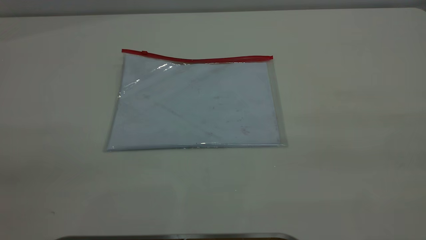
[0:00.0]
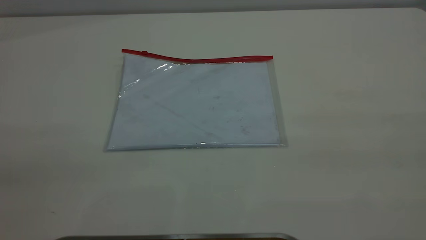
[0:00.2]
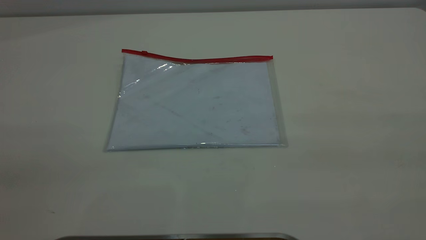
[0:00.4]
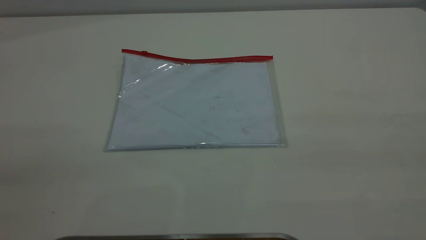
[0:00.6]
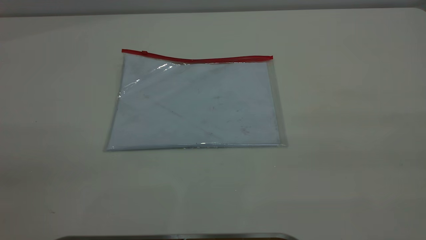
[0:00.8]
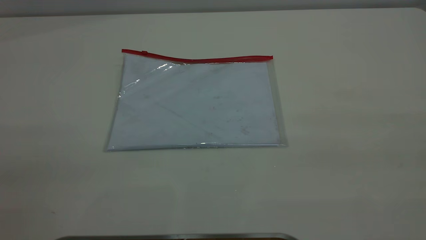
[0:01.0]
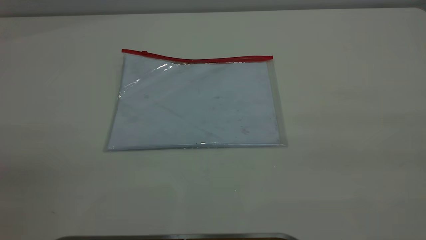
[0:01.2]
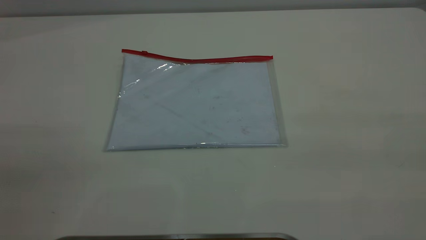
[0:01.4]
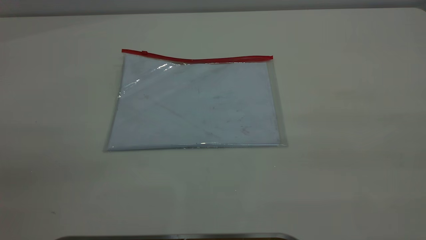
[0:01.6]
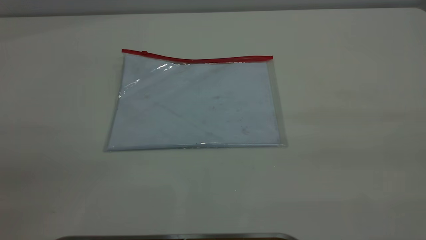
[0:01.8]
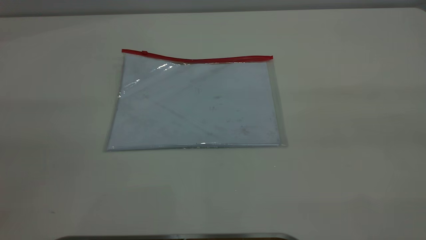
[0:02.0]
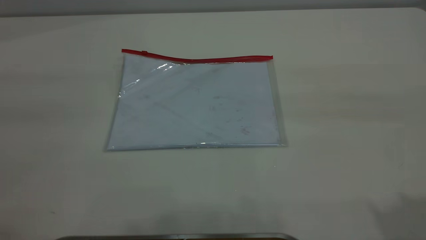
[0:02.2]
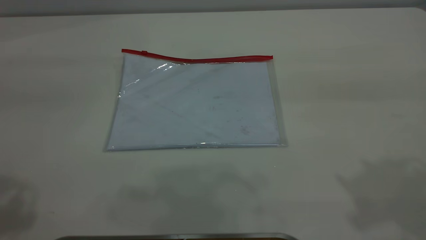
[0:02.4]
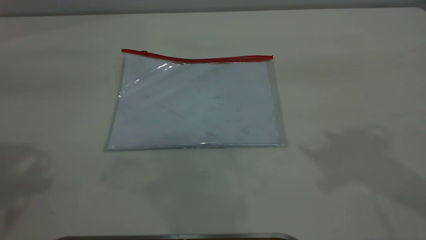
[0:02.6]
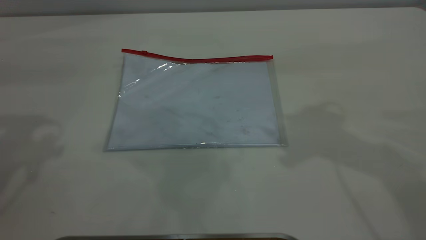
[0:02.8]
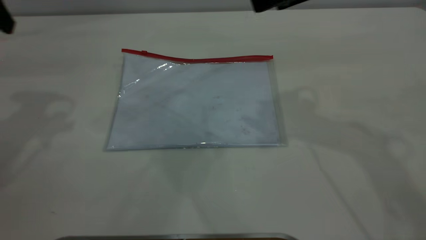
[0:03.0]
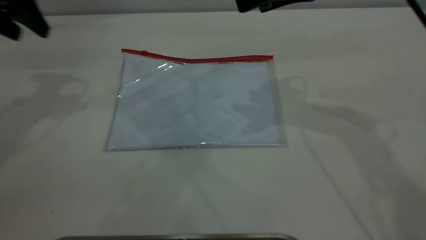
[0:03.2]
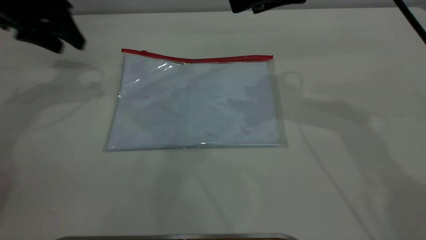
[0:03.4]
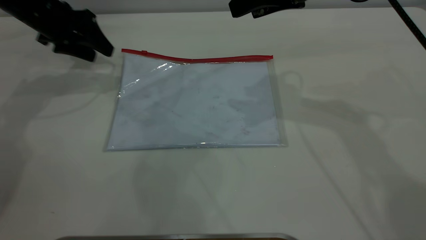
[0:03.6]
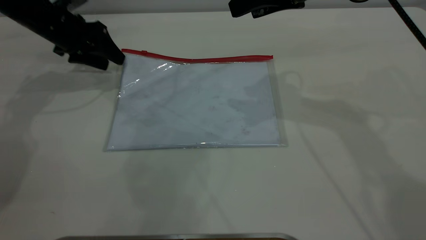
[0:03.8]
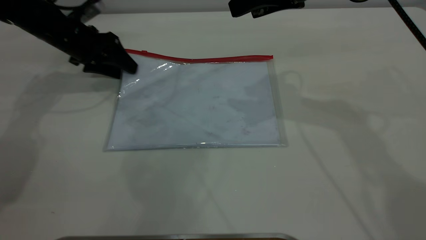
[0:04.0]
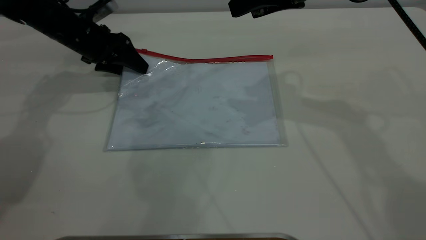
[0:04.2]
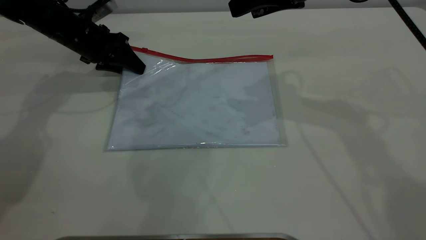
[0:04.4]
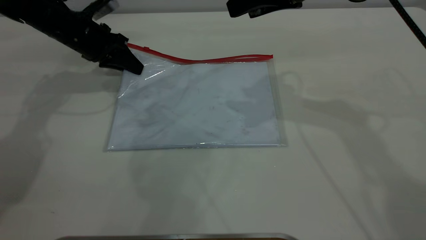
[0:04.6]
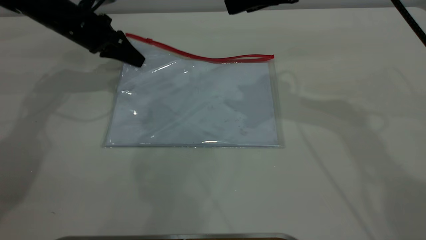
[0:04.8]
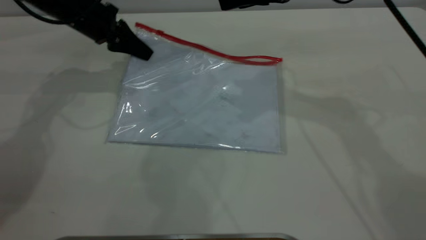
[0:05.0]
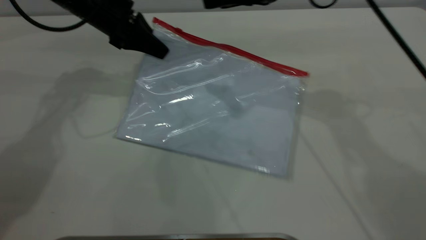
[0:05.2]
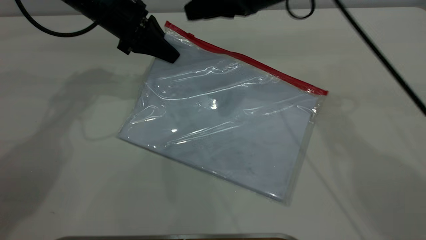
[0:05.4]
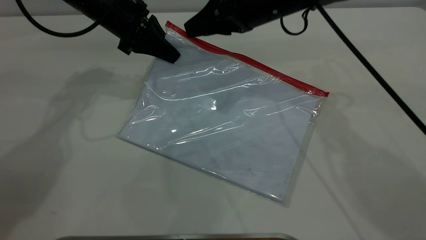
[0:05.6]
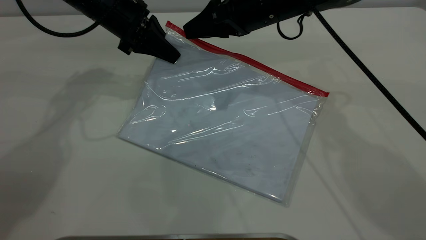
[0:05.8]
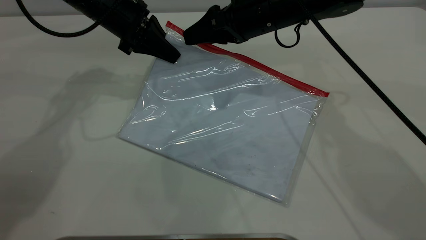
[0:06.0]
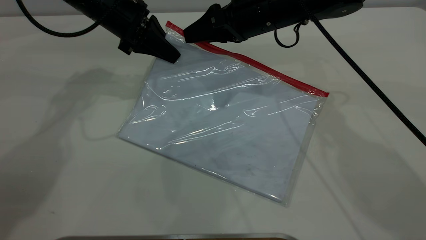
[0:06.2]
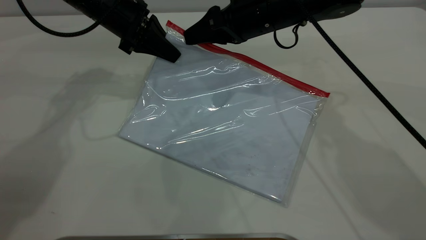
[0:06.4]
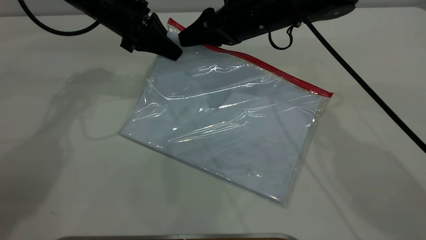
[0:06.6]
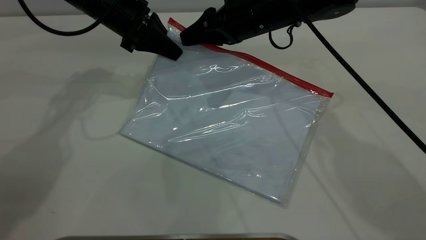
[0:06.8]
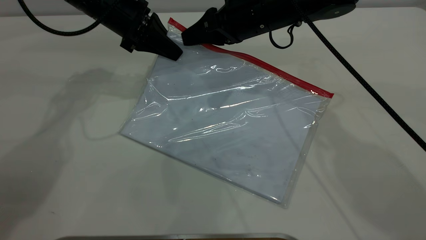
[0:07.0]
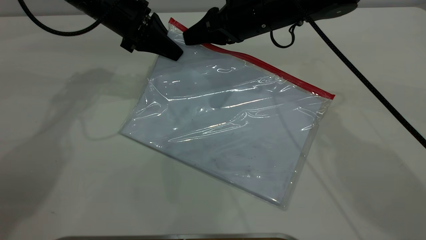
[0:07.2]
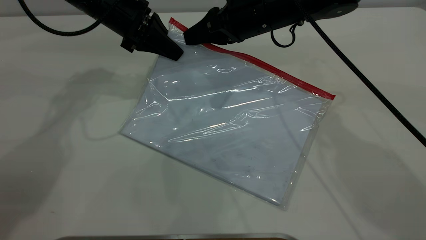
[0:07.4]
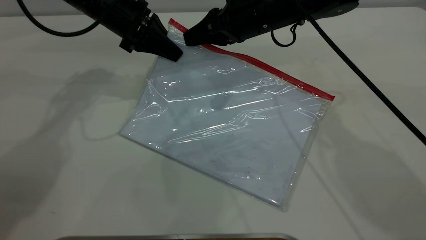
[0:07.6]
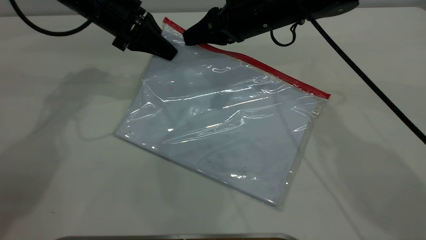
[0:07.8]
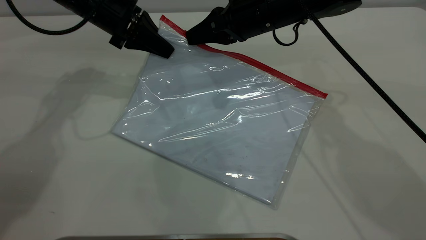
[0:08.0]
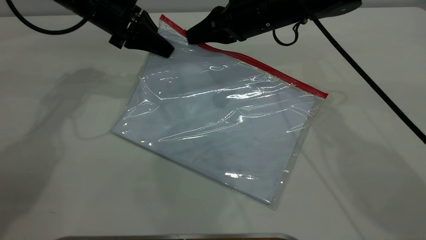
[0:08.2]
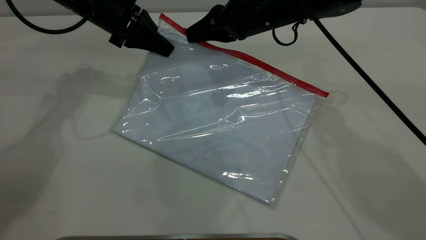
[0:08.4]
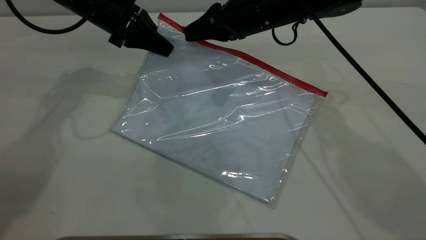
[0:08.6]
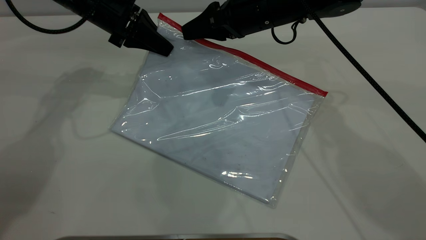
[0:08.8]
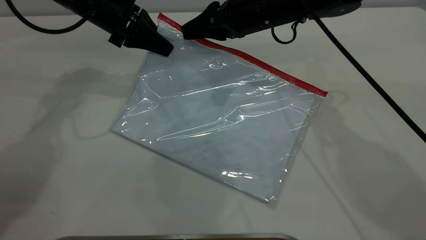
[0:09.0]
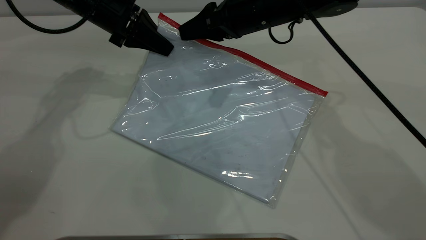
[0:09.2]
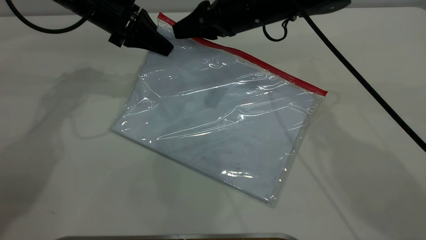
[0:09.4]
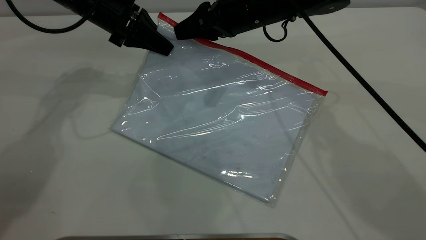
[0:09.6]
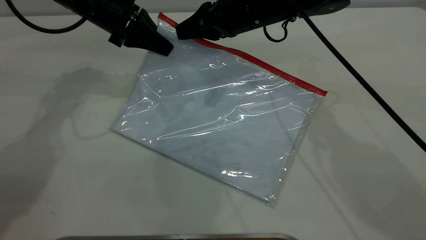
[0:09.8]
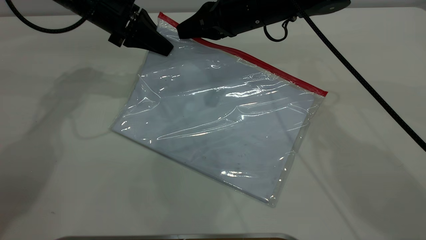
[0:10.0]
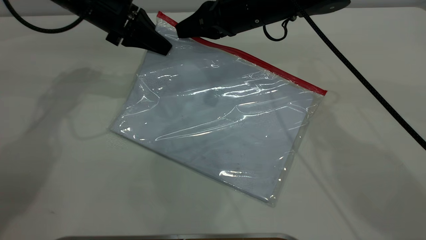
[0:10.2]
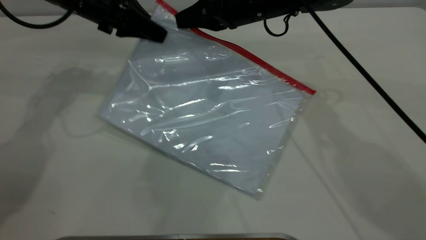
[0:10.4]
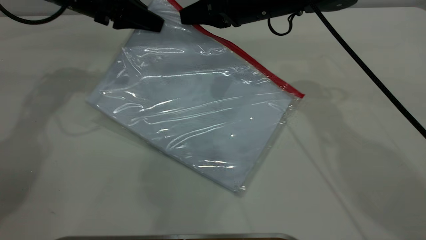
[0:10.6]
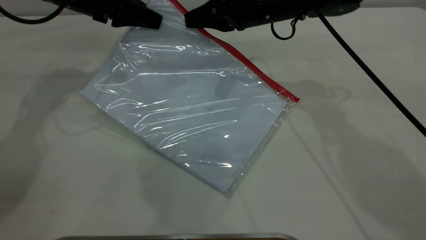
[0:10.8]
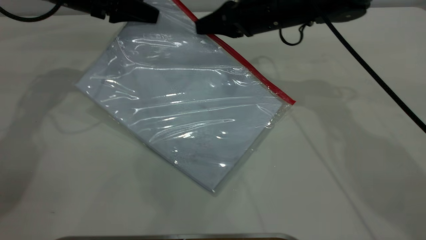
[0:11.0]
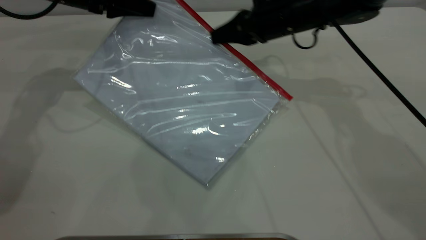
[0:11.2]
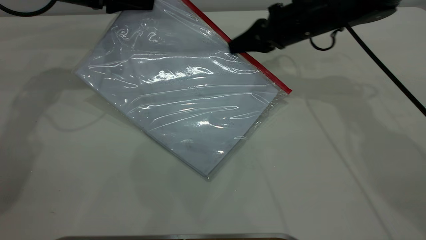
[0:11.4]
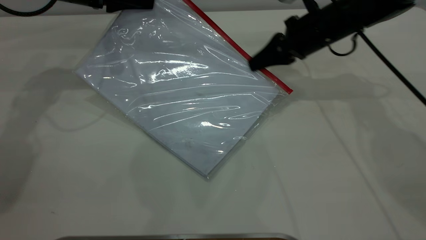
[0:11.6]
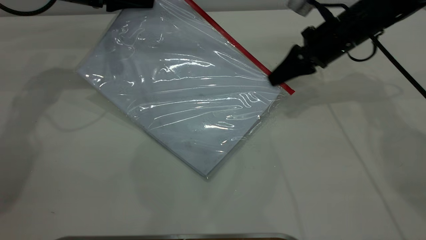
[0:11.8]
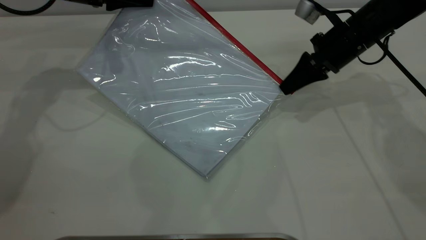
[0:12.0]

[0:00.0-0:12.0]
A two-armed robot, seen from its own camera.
Step, 0:00.0 to 0:05.0: Pick up the transparent plastic bag with the left gripper.
0:00.0 to 0:01.6: The two grippers keep their place.
0:01.6 to 0:03.0: The left gripper goes roughly 35 cm forward, and opens its fingers.
0:03.0 to 0:04.4: The right gripper shifts by approximately 5 cm. Meanwhile the left gripper heads downward and forward, covering approximately 25 cm, and closes up.
0:04.4 to 0:06.0: The left gripper shifts about 10 cm to the right and upward, and closes up, while the right gripper travels downward and to the left by approximately 10 cm.
0:06.0 to 0:07.6: The right gripper closes up.
0:07.6 to 0:09.0: The right gripper opens up.
0:09.0 to 0:10.4: The right gripper closes up.
0:10.4 to 0:12.0: The right gripper is displaced to the right and downward by about 15 cm.

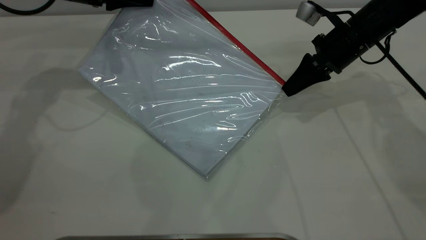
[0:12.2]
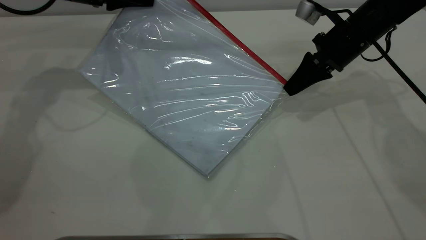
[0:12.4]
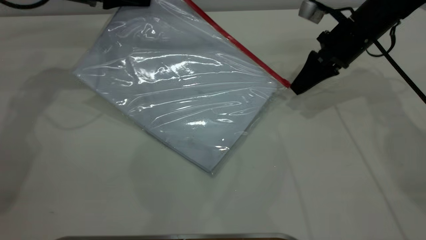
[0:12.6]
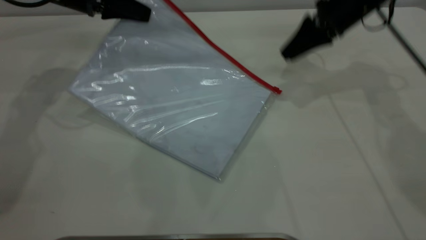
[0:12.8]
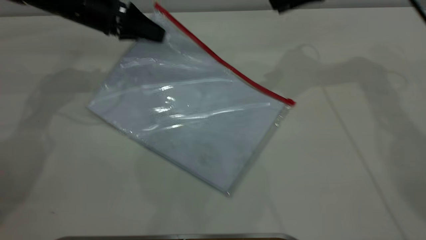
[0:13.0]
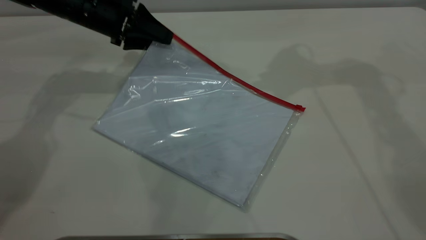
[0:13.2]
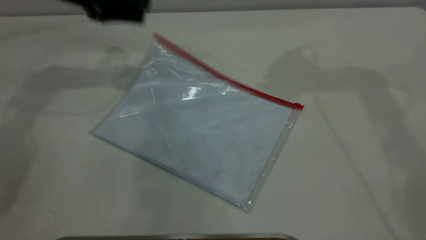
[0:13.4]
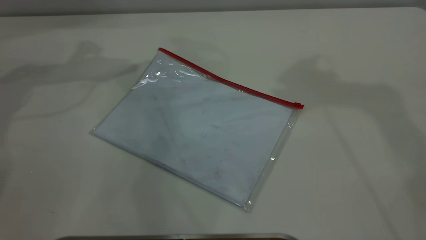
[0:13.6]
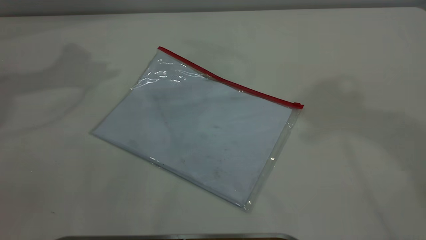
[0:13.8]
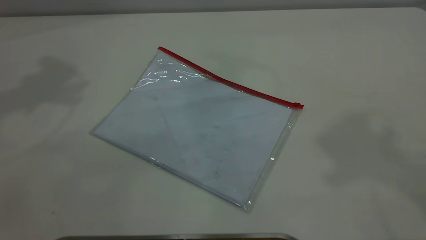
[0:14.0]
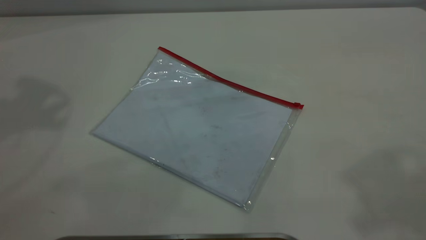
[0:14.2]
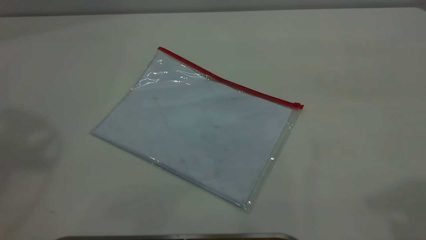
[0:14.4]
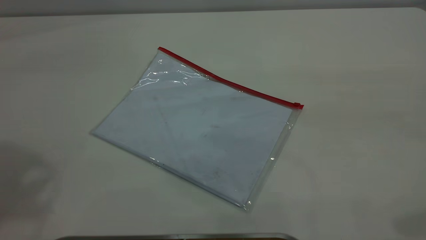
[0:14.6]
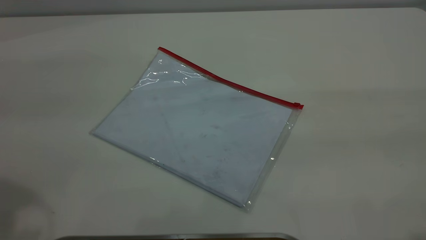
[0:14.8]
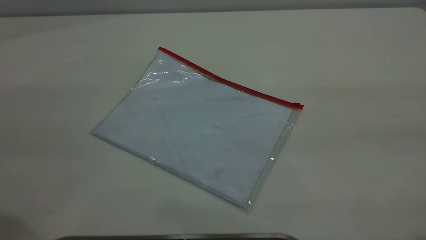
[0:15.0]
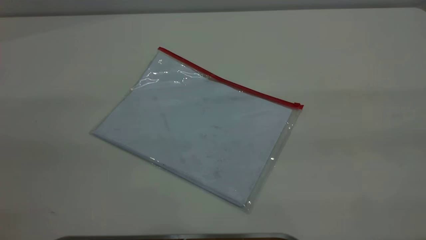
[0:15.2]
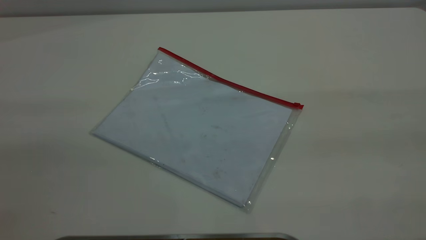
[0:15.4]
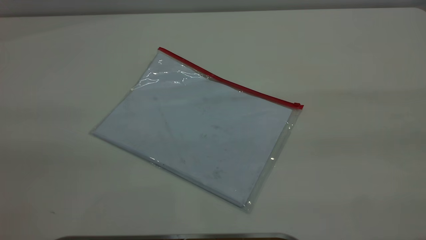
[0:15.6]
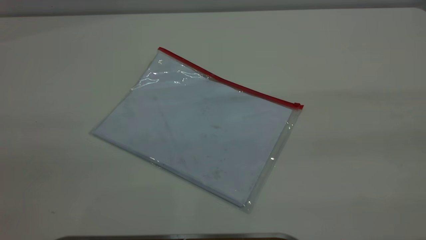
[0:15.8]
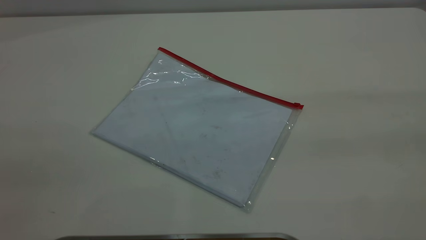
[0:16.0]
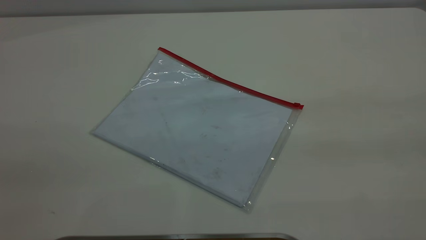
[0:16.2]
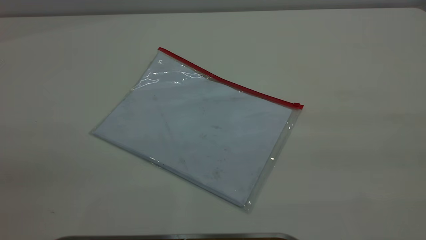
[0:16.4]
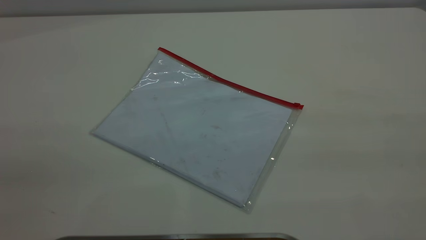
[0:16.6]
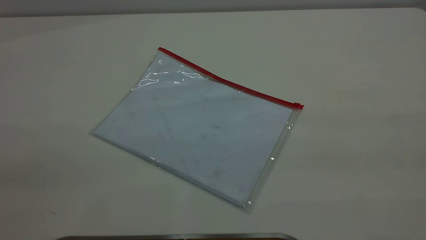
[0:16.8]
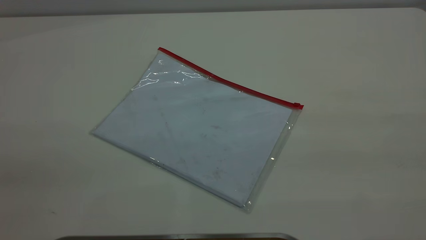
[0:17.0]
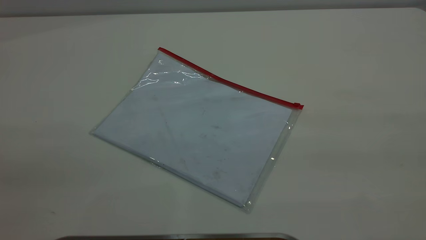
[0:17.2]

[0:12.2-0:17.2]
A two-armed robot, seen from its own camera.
Step, 0:12.8 to 0:13.4: Place the transparent plastic bag.
0:12.2 to 0:13.8: The right gripper travels upward by about 40 cm, and opens its fingers. The left gripper is displaced upward by approximately 20 cm, and opens up.
